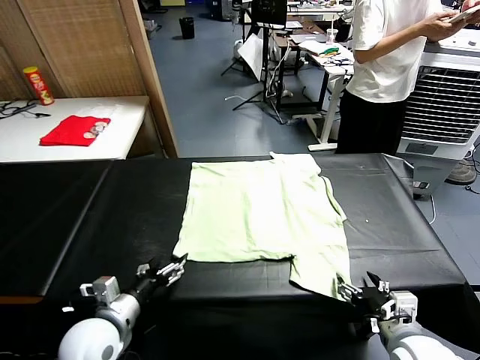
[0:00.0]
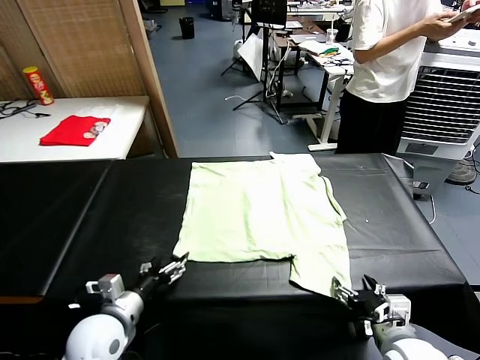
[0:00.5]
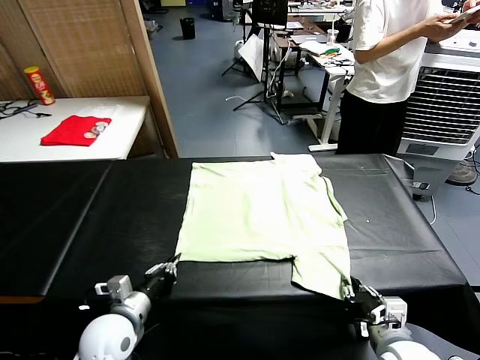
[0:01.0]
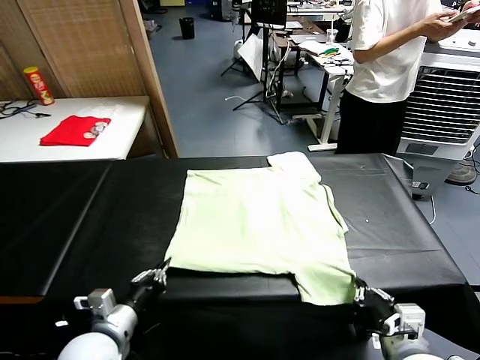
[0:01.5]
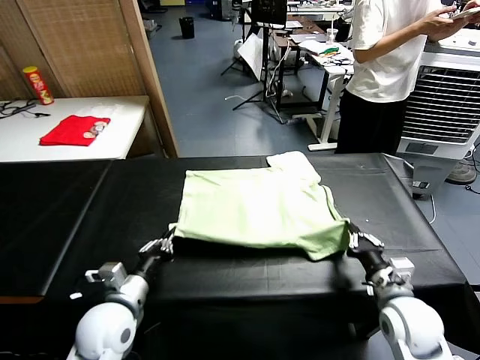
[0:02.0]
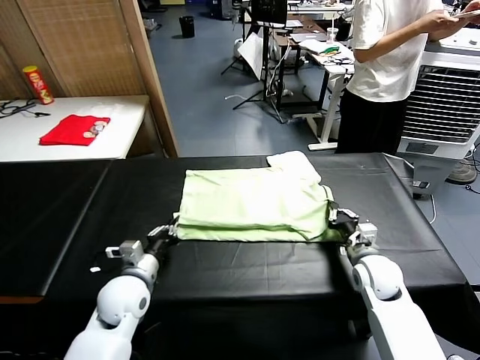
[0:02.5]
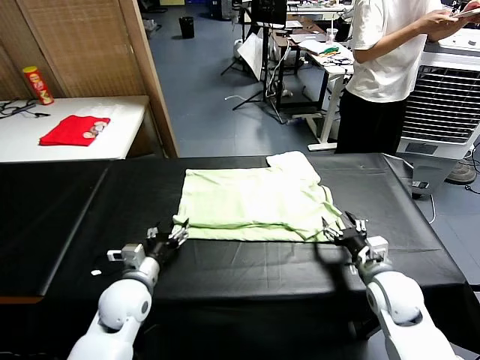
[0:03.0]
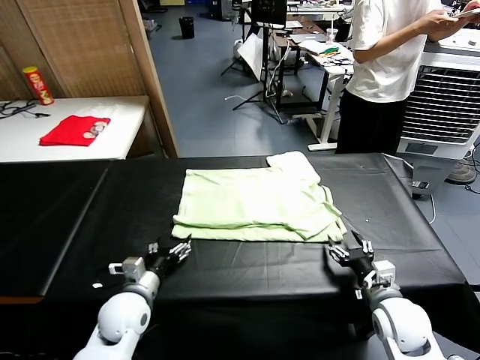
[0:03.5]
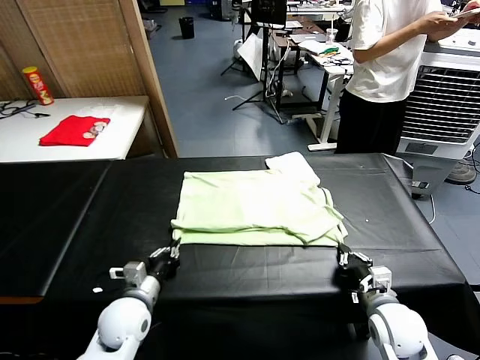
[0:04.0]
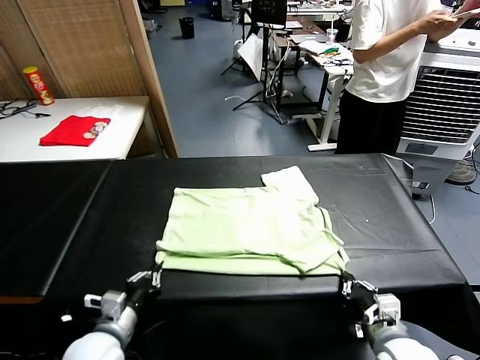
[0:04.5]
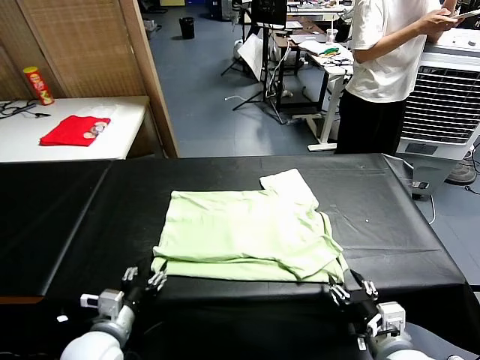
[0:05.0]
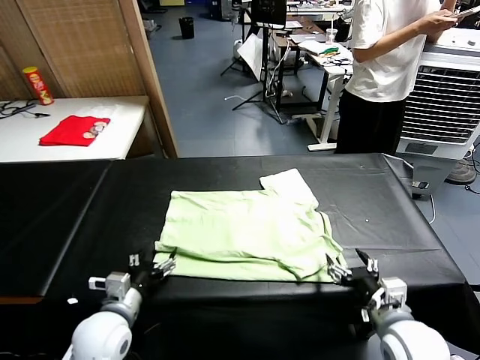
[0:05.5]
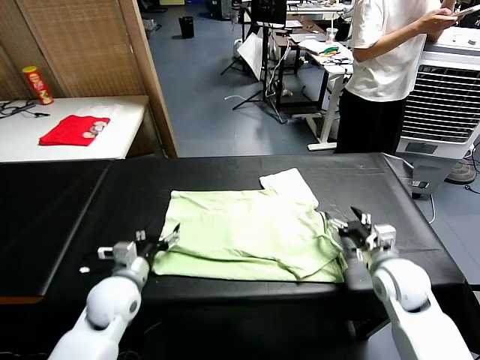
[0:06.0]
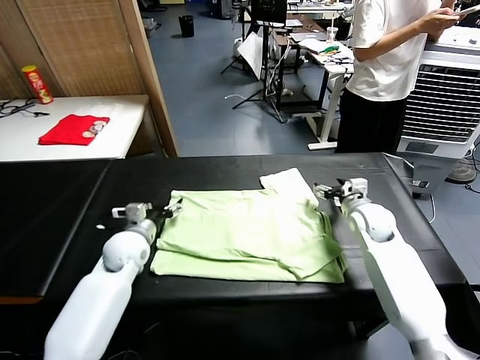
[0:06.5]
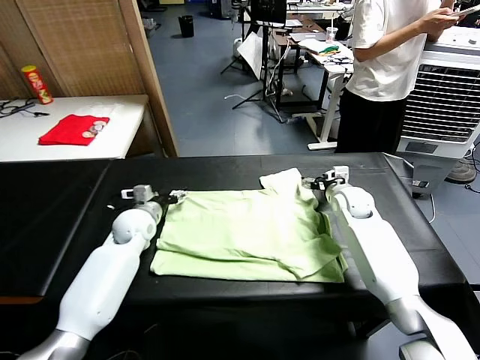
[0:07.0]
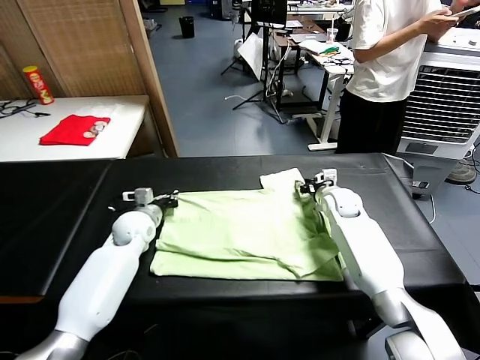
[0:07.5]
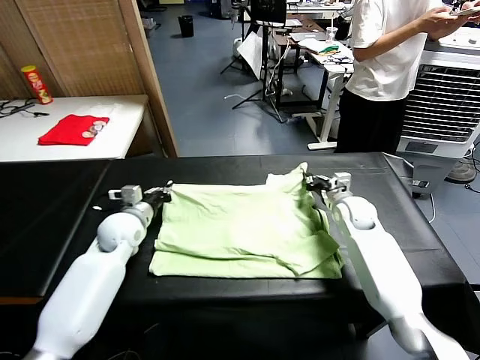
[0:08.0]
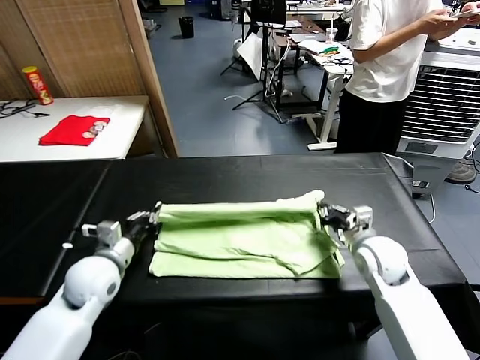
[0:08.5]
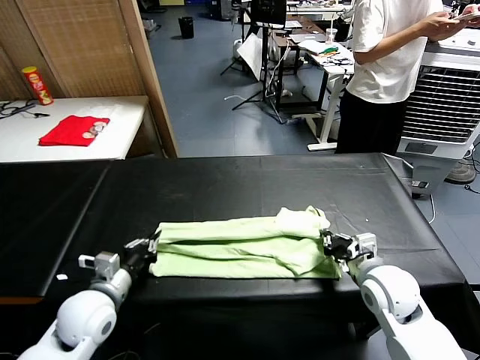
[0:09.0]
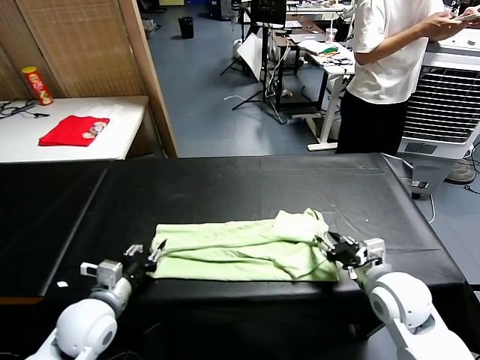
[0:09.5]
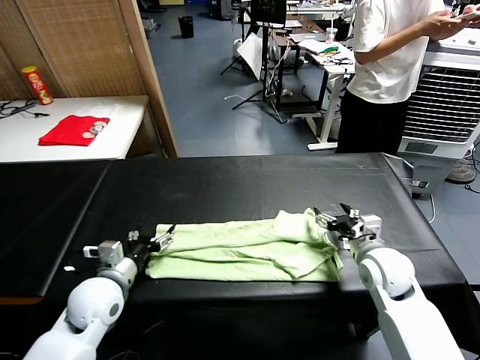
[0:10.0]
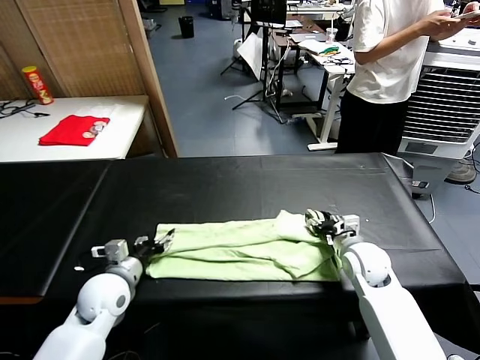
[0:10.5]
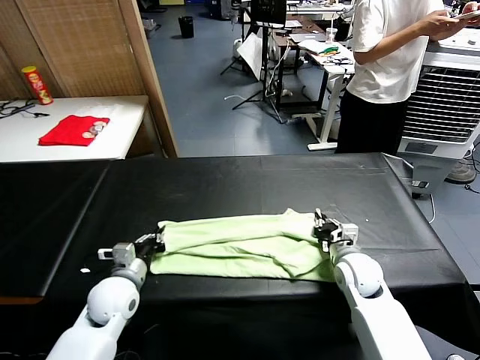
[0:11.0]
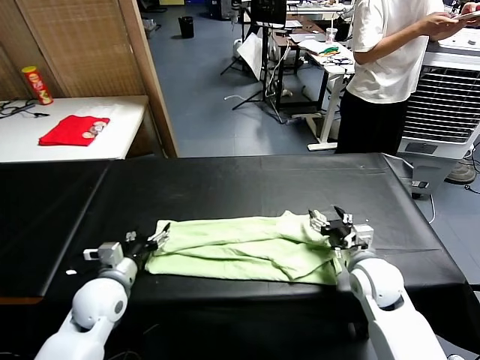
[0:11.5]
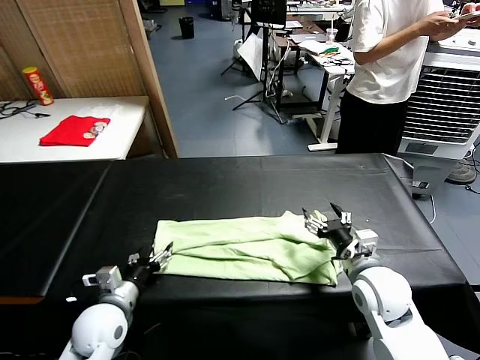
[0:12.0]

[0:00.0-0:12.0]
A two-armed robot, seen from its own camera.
Task of the whole recording: fold and organize the clothes.
Step, 0:00.0 to 0:01.0: use both grippers simultaneously to clamp the lower edge of the clothing fabric.
Step, 0:01.5 to 0:02.5: use both grippers to drag the lower edge of the fabric forward and fold it over the upper edge.
Step, 0:03.0 to 0:04.5: Drag the clothes downward with both gripper.
Step, 0:05.0 to 0:07.5: use both grippers simultaneously to clamp the upper edge of the clothing fabric.
Step, 0:08.0 to 0:09.0: use both grippers to drag the upper edge of the fabric backward and fold it over the lower edge.
0:02.0 to 0:04.0: The right gripper shifts about 5 cm backward, and opens, then closes again. Meanwhile the left gripper moves downward, approximately 5 cm, and opens, then closes again.
0:04.0 to 0:06.0: The left gripper goes backward and returns, some 10 cm each way, and opens up. The right gripper heads forward, covering about 15 cm, and opens.
0:06.0 to 0:08.0: The grippers both shift forward by some 15 cm. The left gripper closes up. Meanwhile the right gripper closes up.
0:08.0 to 0:10.0: Both grippers travel together backward, about 15 cm. The right gripper opens up; the left gripper opens.
0:10.0 to 0:12.0: The left gripper changes place by approximately 5 cm, and closes, then opens again, while the right gripper shifts about 5 cm backward, and closes, then reopens.

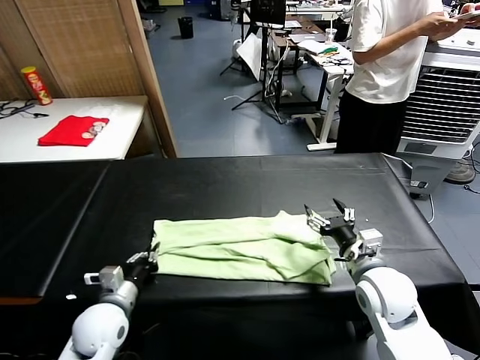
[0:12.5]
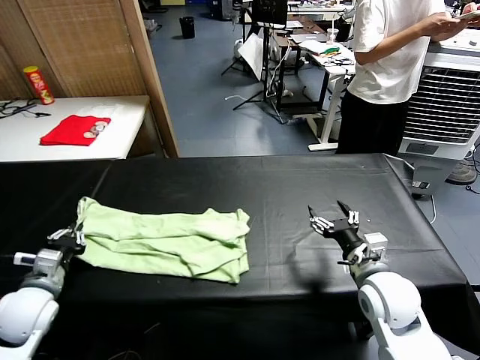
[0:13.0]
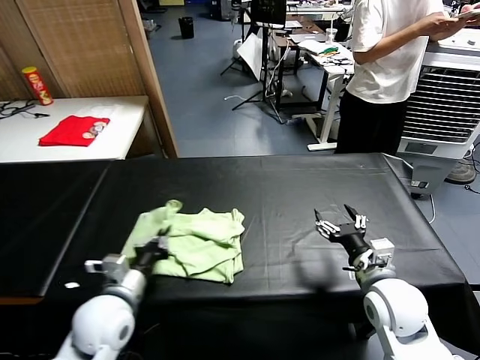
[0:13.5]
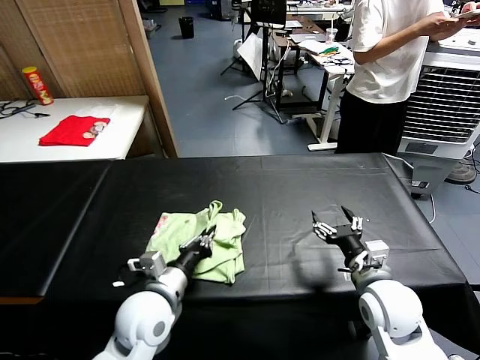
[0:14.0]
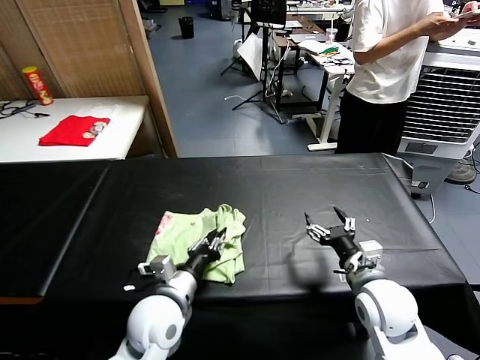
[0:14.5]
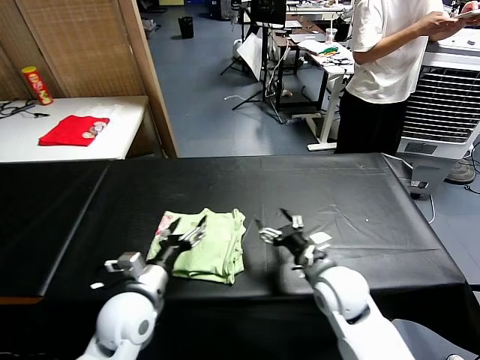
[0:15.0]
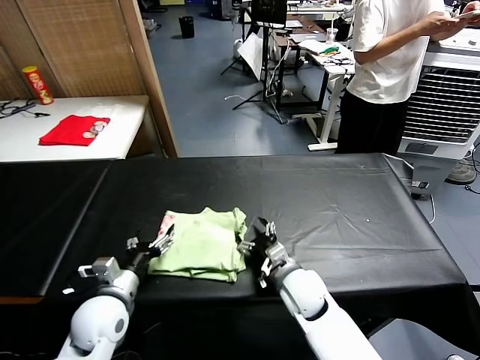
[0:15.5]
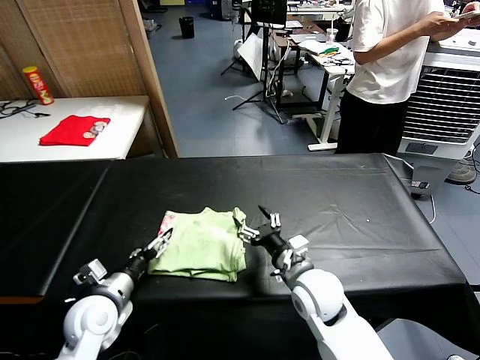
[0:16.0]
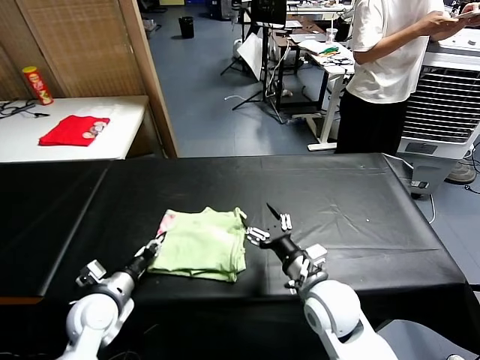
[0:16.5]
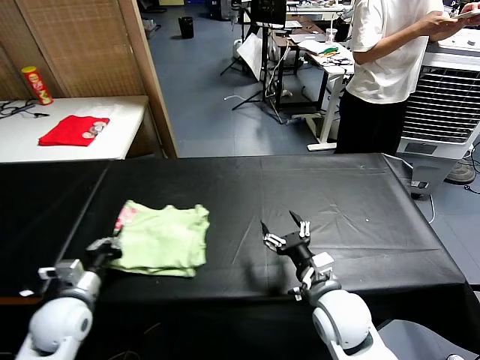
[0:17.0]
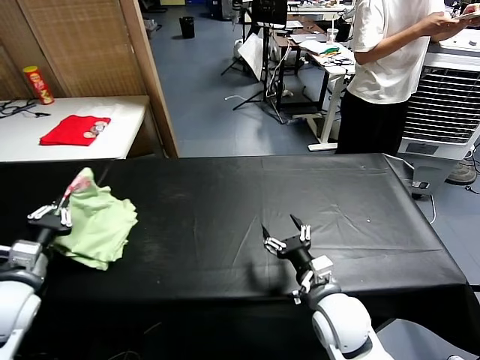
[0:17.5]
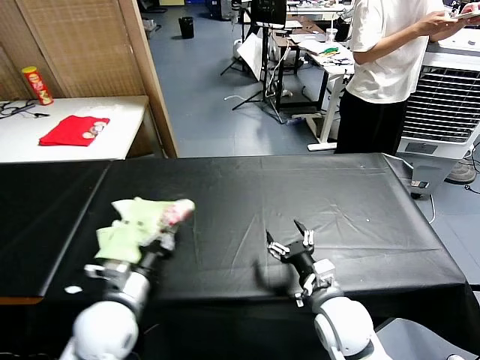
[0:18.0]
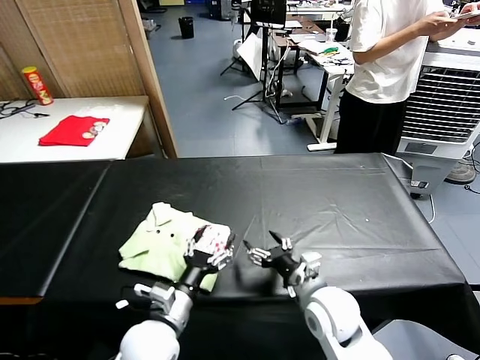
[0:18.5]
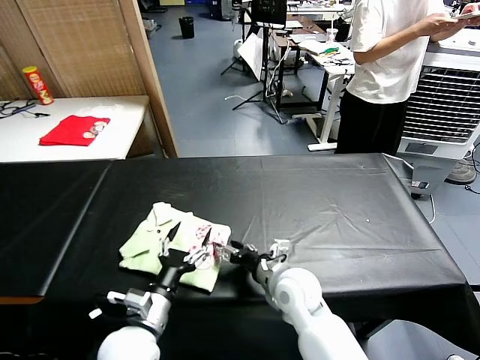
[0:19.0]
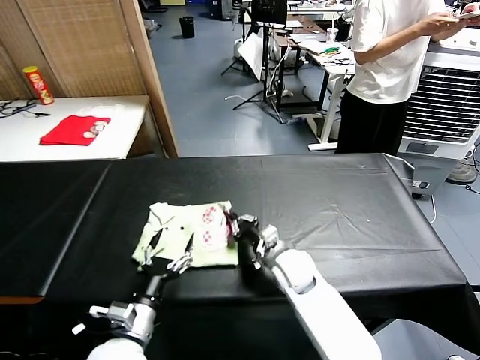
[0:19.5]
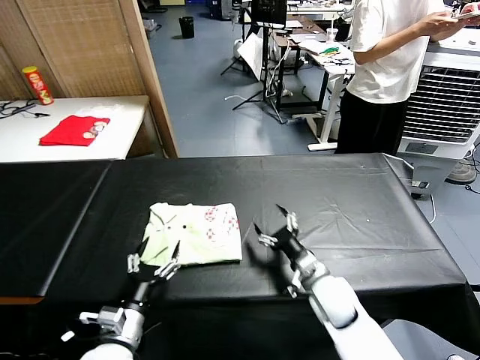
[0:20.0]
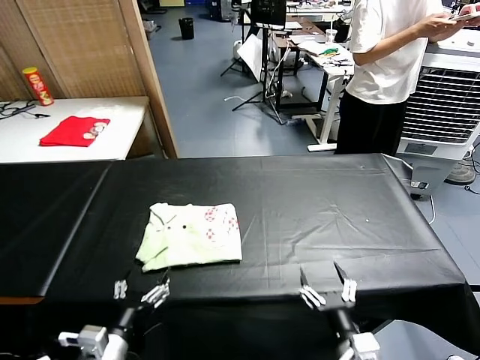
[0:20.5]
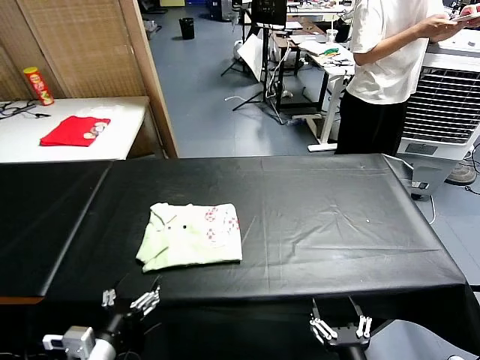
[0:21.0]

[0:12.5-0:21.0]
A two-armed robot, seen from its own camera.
Task of the whole recording: fold and organize the clothes.
Step, 0:12.5 to 0:14.5: use the left gripper to drag the left edge of the fabric to the left and folds it over the right edge.
Step, 0:15.0 to 0:18.0: Flip the folded clothes over with left gripper.
Step, 0:18.5 to 0:19.5: Drag the clothes to the center of the table.
0:12.5 to 0:14.5: The left gripper shifts roughly 15 cm to the right and upward.
0:14.5 to 0:16.5: The right gripper travels to the left by about 10 cm. The left gripper goes some 15 cm to the left, and opens, then closes once more.
0:16.5 to 0:19.0: The left gripper heads to the right and backward, covering roughly 15 cm, and opens its fingers, while the right gripper is displaced to the left by some 5 cm.
0:19.0 to 0:21.0: The left gripper moves backward and to the left, approximately 10 cm; the right gripper moves backward, roughly 25 cm, and closes, then reopens.
